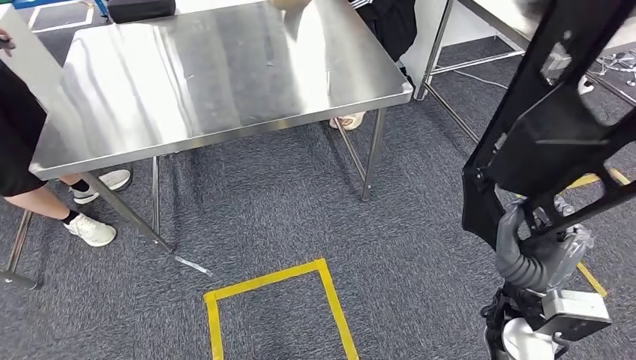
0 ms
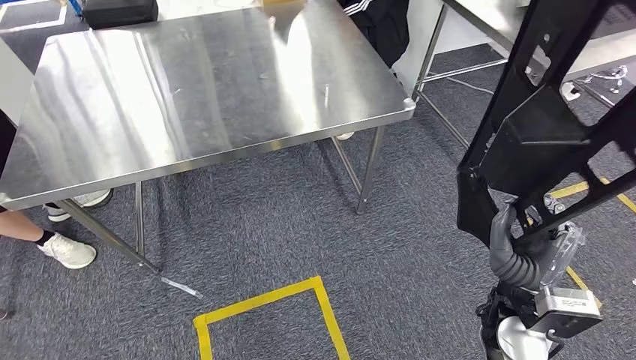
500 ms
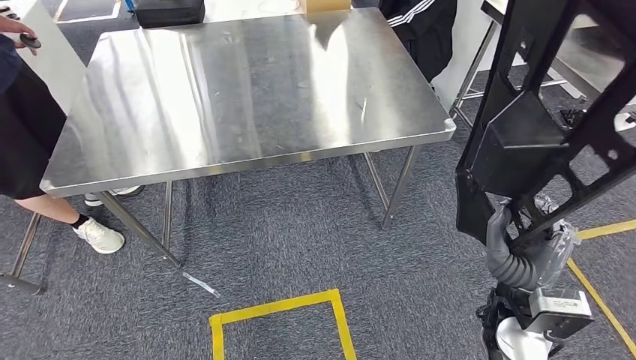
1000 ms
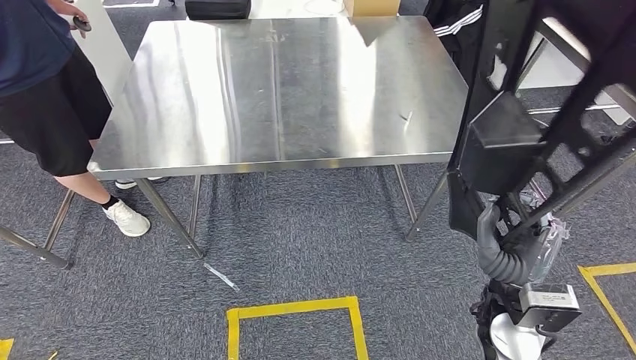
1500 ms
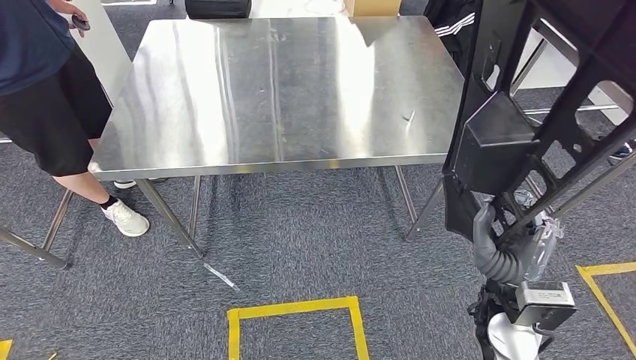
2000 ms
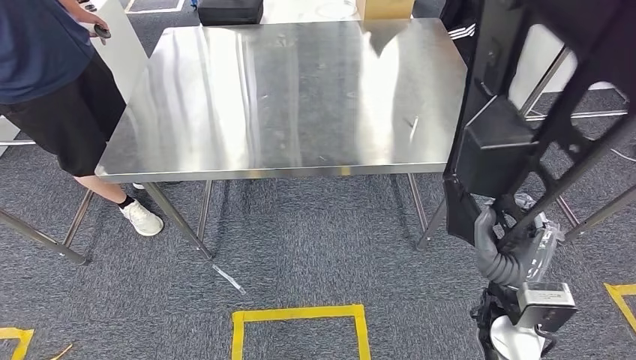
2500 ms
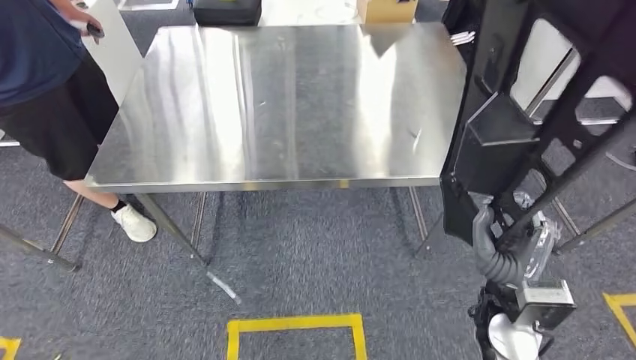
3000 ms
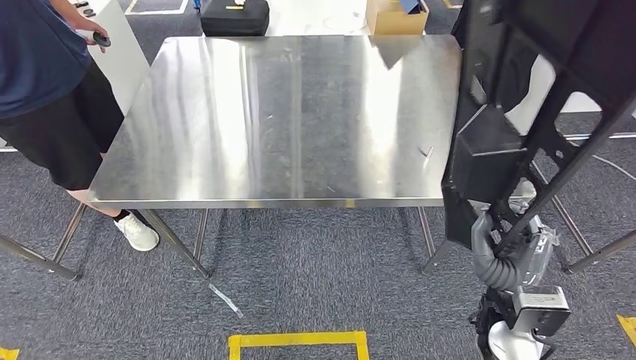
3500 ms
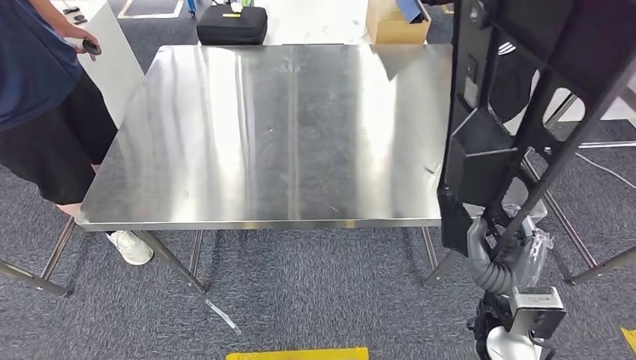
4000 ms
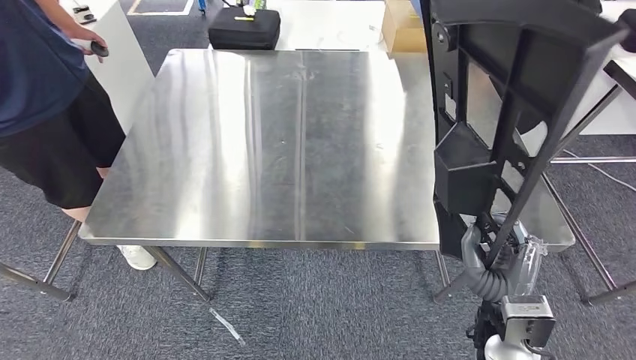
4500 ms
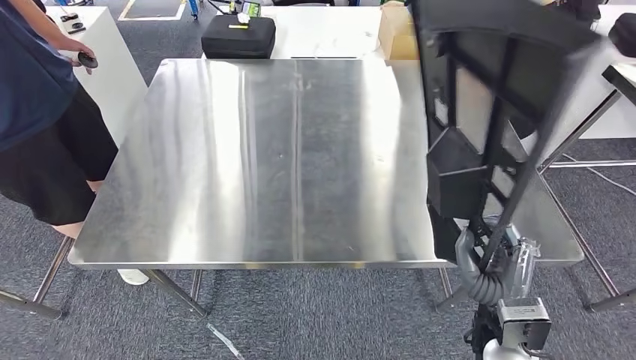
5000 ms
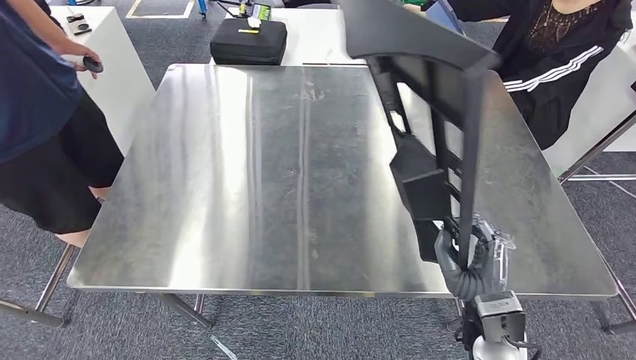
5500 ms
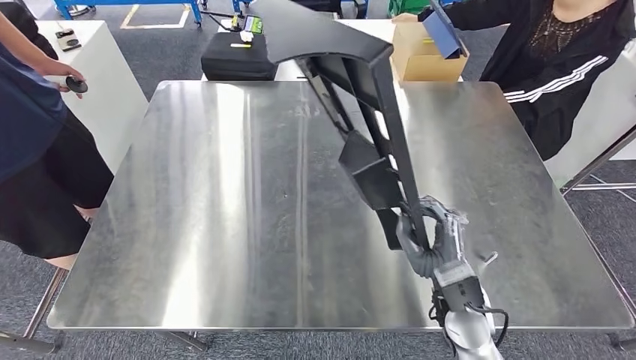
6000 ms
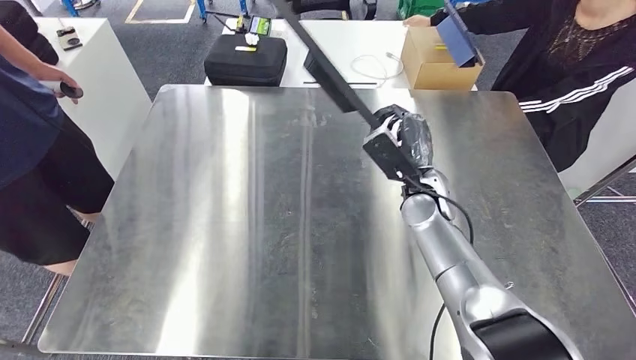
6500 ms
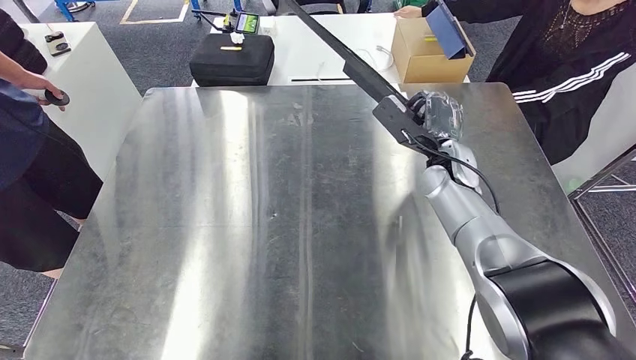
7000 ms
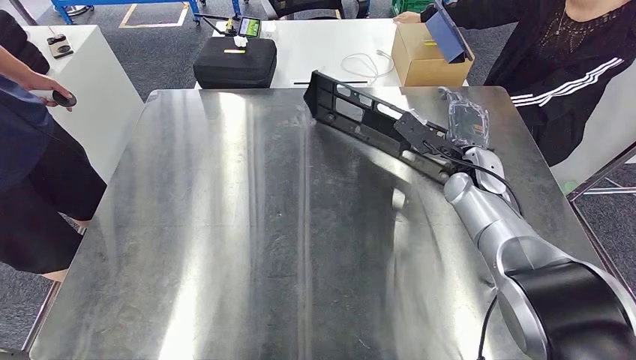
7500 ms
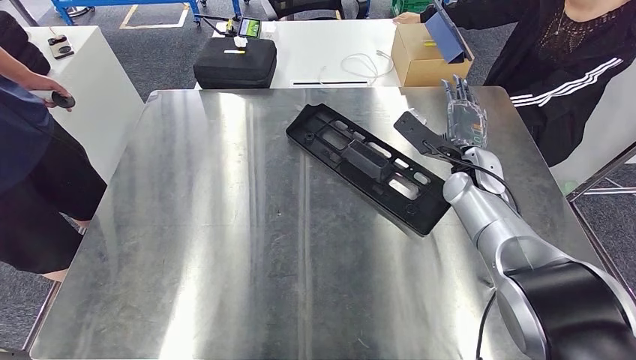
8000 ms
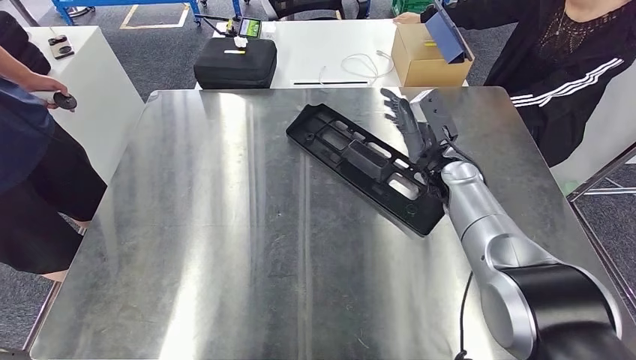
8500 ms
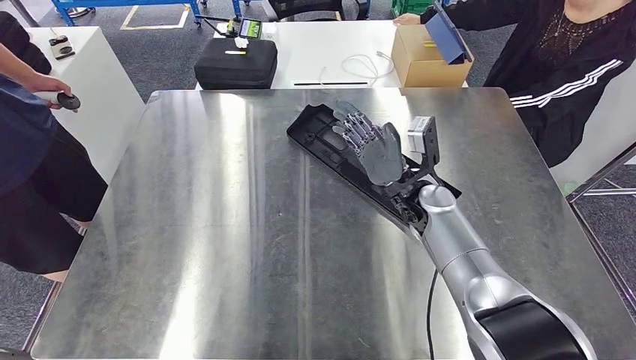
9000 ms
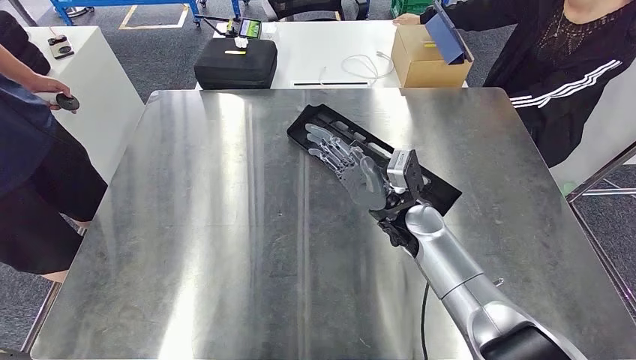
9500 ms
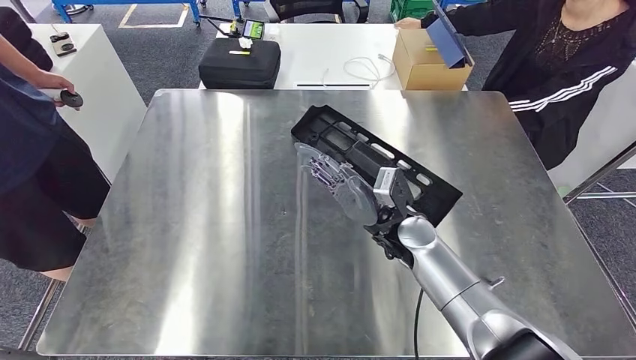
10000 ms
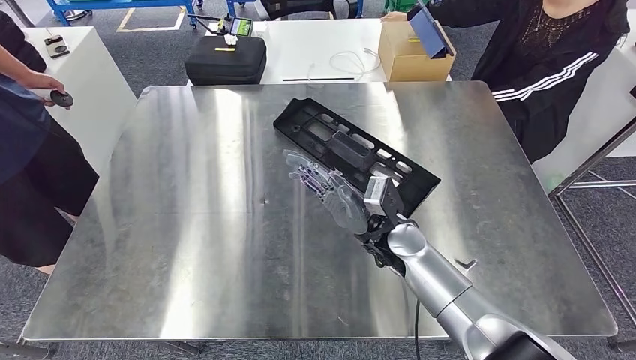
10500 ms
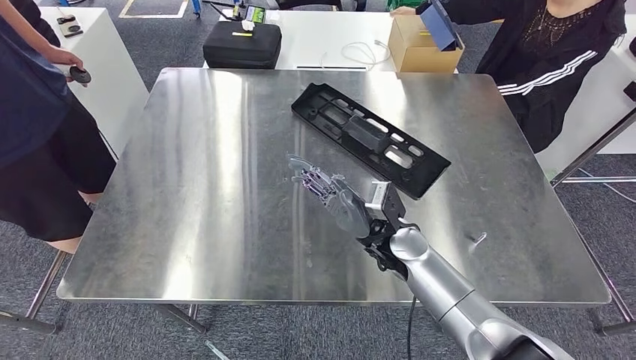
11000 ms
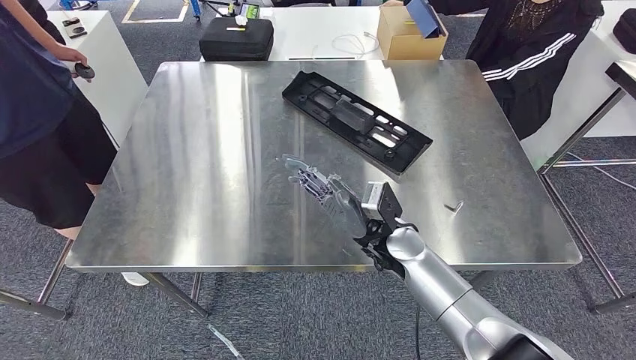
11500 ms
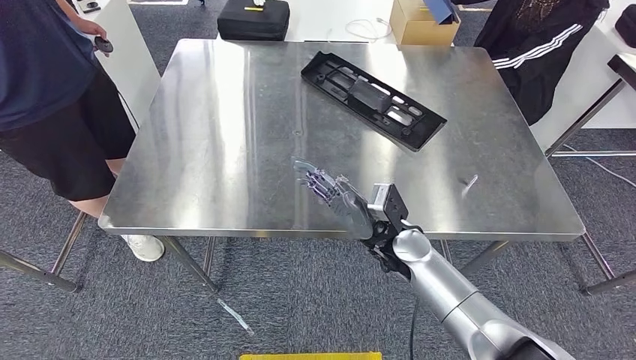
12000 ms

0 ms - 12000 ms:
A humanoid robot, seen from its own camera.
Step, 0 ms - 7500 ms: Insert the large material into the corresponding slot on the workbench.

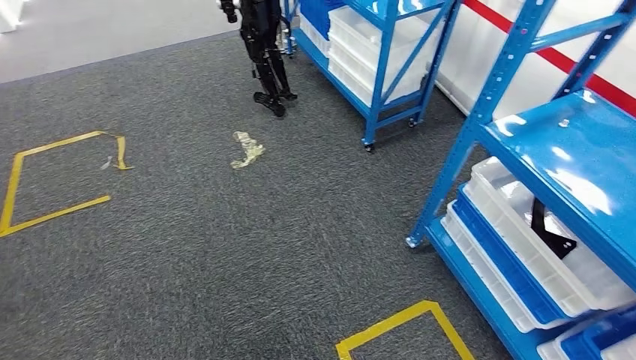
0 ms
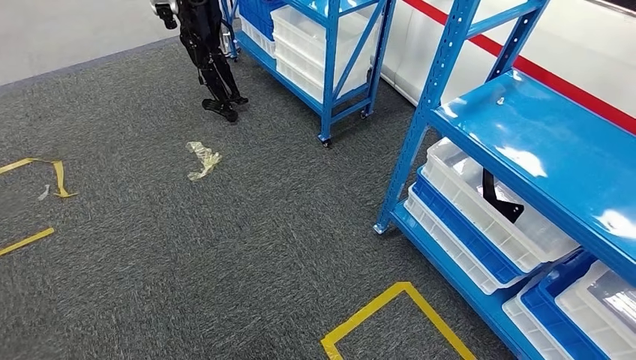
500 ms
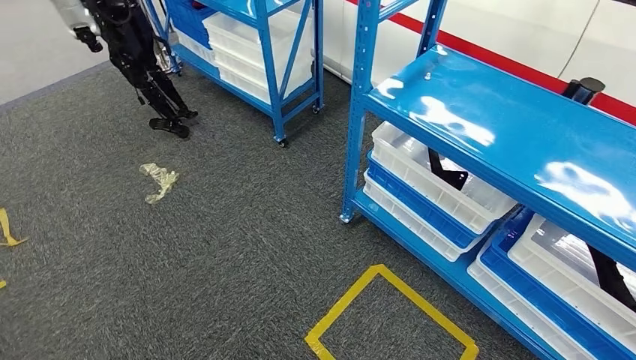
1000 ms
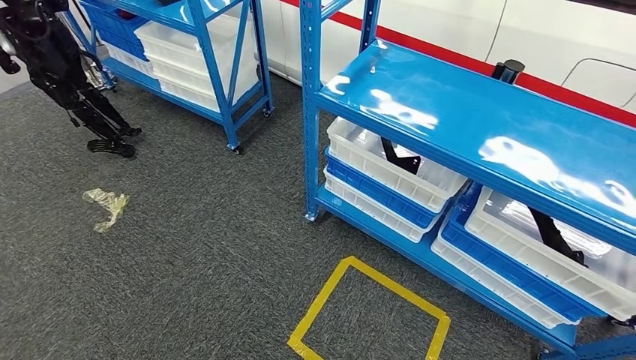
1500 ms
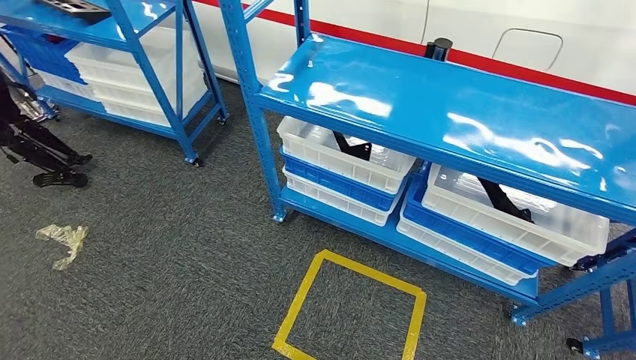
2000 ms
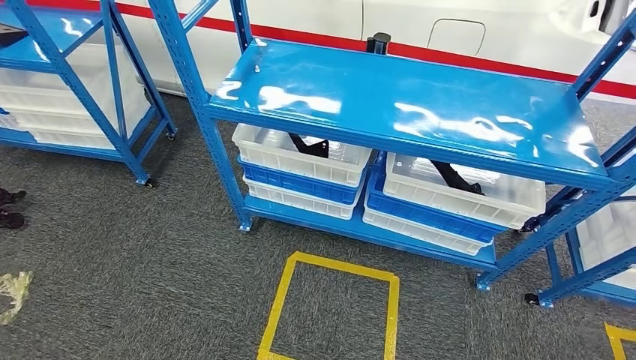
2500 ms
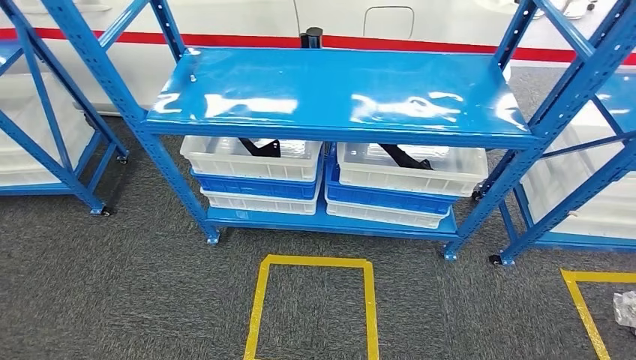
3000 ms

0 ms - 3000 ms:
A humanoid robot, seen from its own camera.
Step, 0 ms - 3000 ms: Return to the initial position at the shelf.
